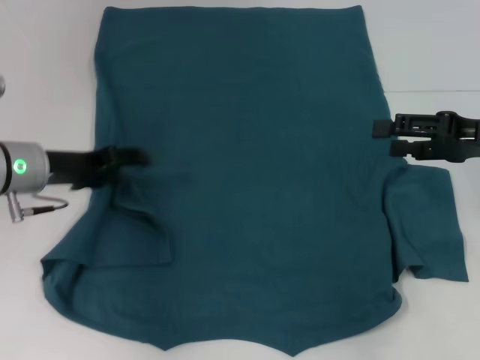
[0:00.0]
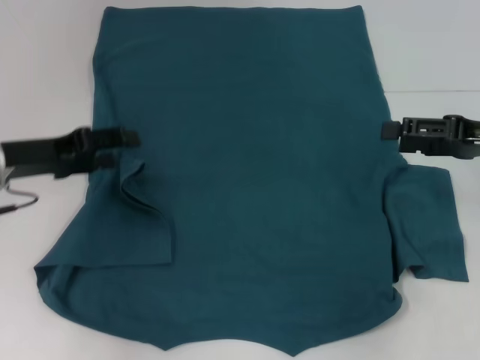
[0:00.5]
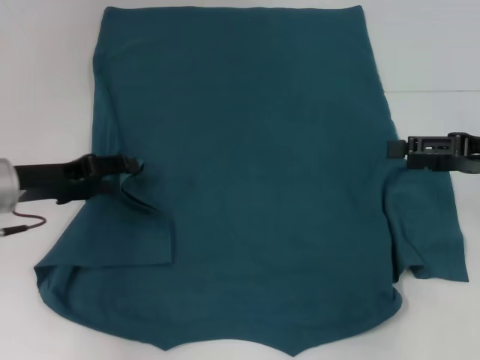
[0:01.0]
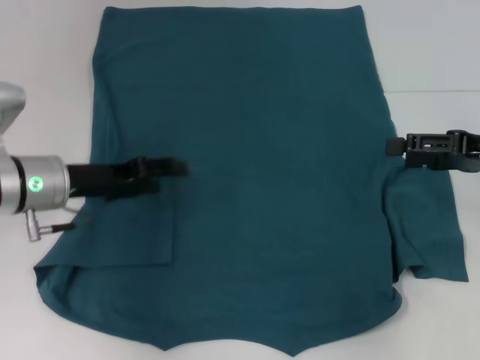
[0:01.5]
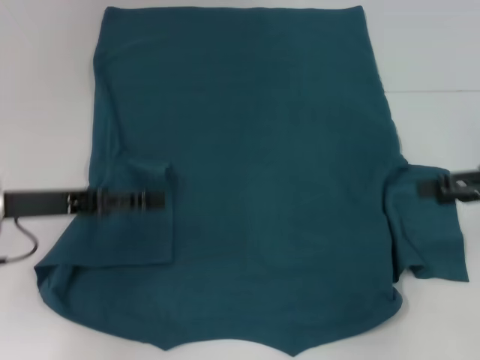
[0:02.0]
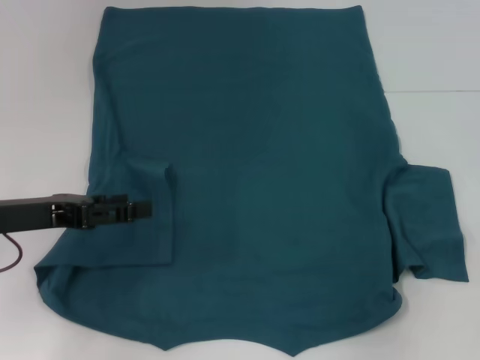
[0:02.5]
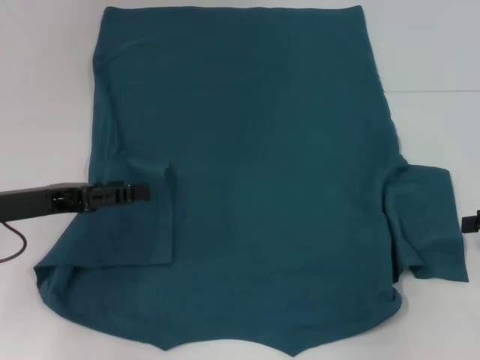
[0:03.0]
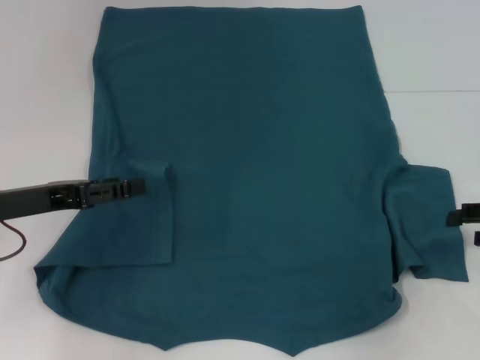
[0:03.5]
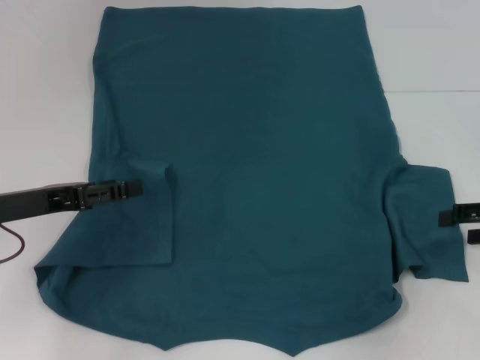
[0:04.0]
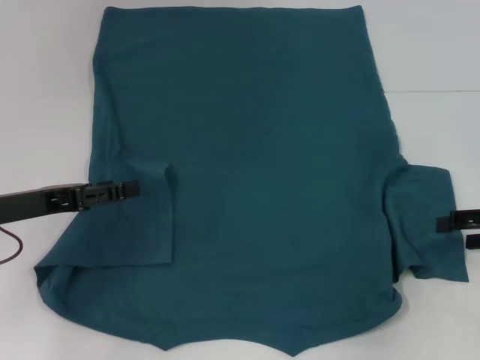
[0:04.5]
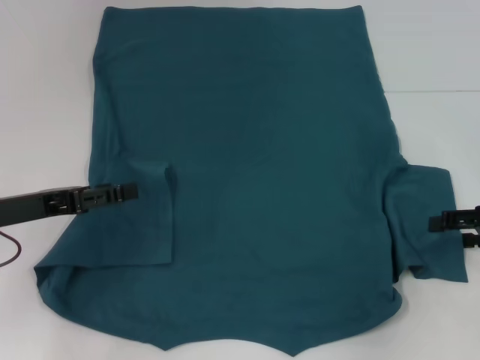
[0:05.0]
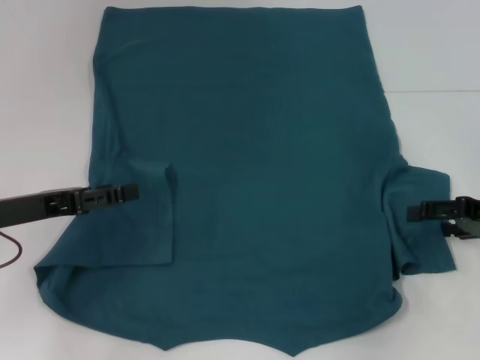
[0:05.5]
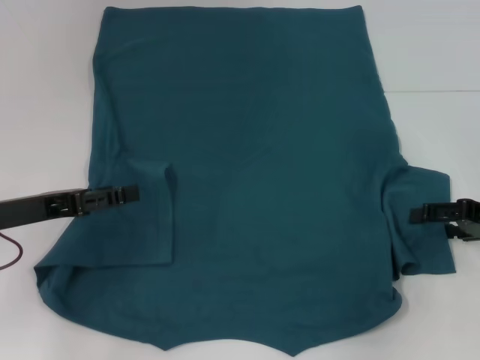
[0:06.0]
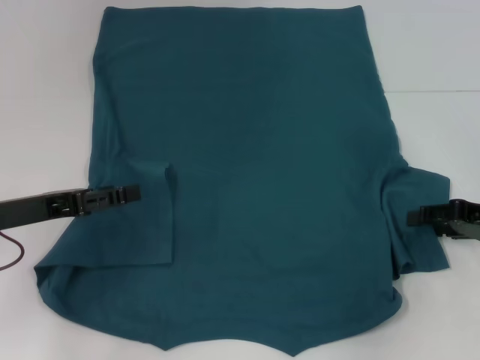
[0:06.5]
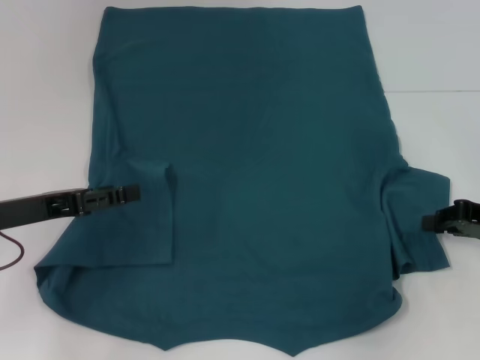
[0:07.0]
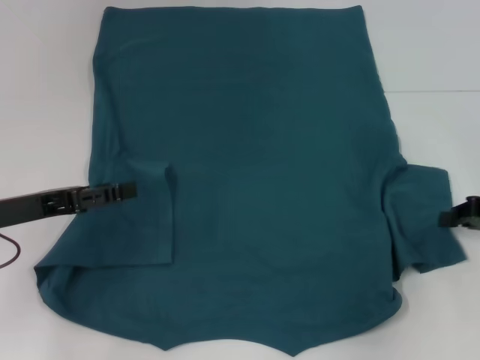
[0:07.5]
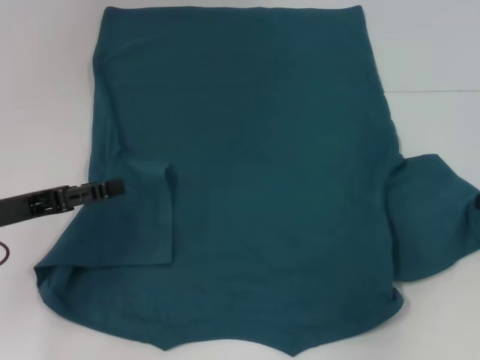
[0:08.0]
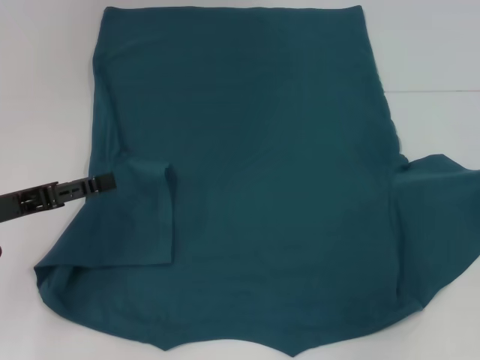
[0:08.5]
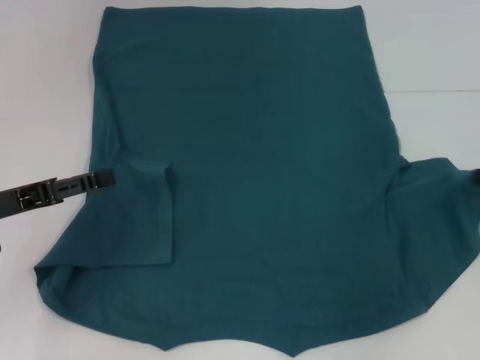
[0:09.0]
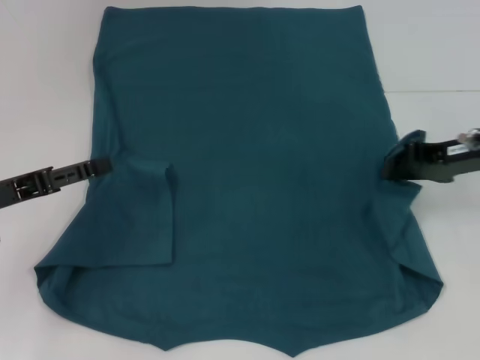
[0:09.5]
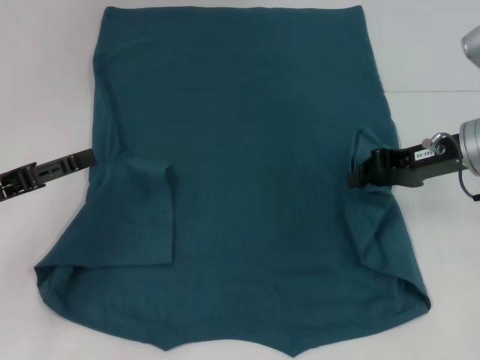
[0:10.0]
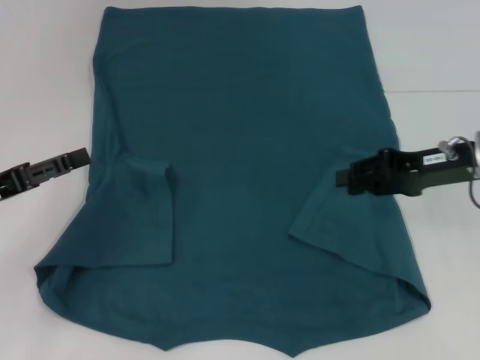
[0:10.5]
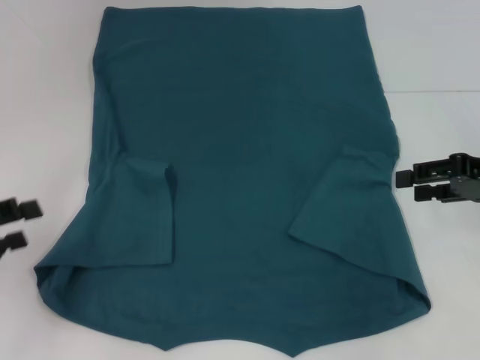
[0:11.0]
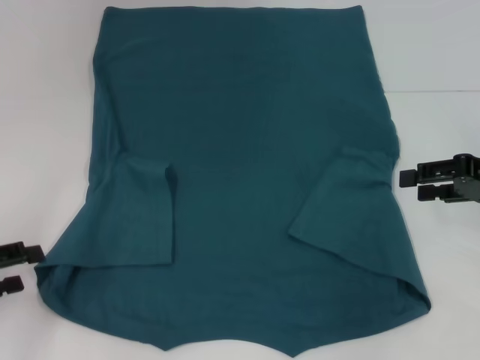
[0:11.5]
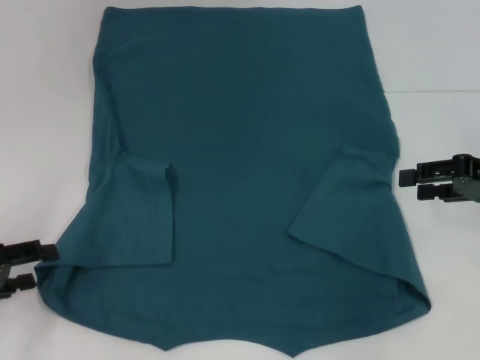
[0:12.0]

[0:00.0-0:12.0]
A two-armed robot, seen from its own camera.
Step, 0:02.0 to 0:10.0: Fold the bottom right sleeve to the right.
0:00.0 to 0:02.0: The left gripper heads backward, covering approximately 5 cm.
0:02.0 to 0:04.0: The right gripper shifts roughly 5 cm downward.
0:04.0 to 0:06.0: The grippers move only a little.
0:06.0 to 0:08.0: The right gripper closes its fingers.
0:08.0 to 0:10.0: The right gripper moves to the left, about 15 cm.
0:10.0 to 0:12.0: The right gripper is displaced to the right by some 10 cm, and opens its fingers. The left gripper changes place by approximately 5 cm.

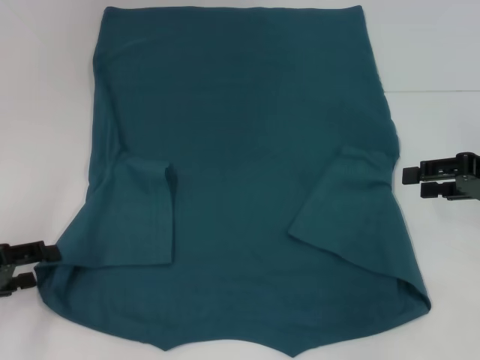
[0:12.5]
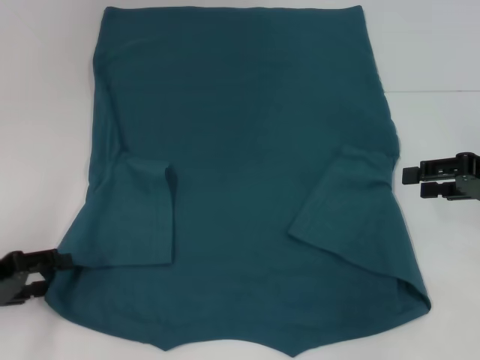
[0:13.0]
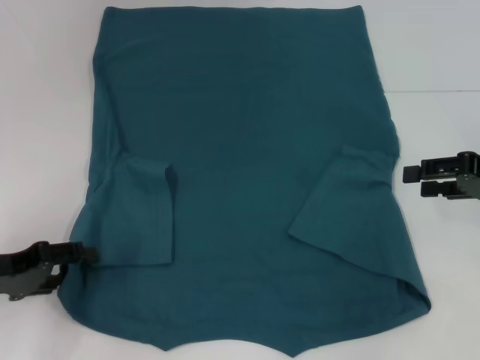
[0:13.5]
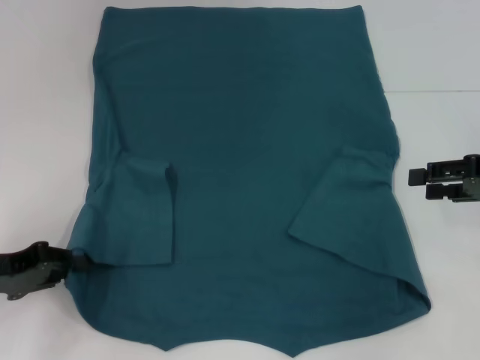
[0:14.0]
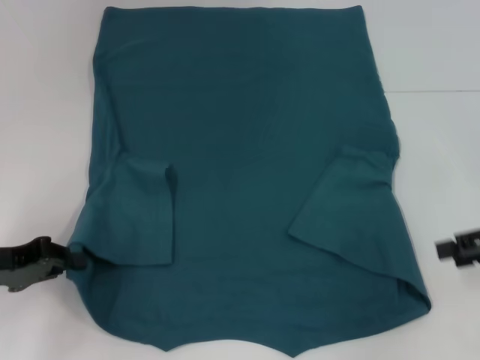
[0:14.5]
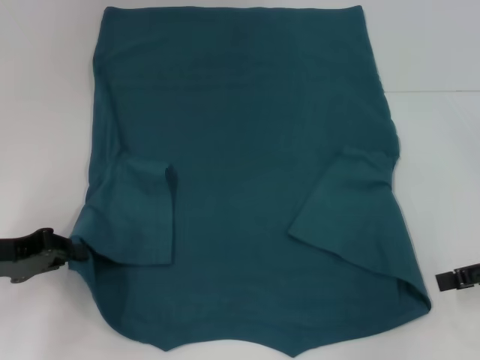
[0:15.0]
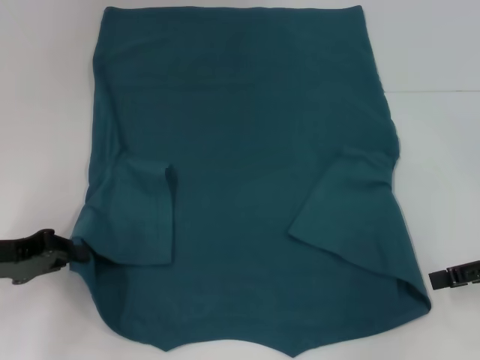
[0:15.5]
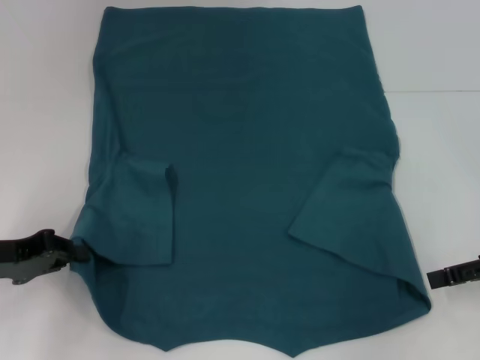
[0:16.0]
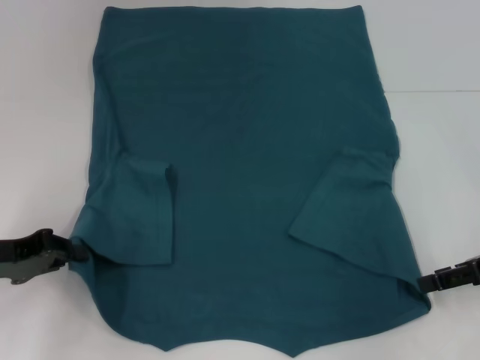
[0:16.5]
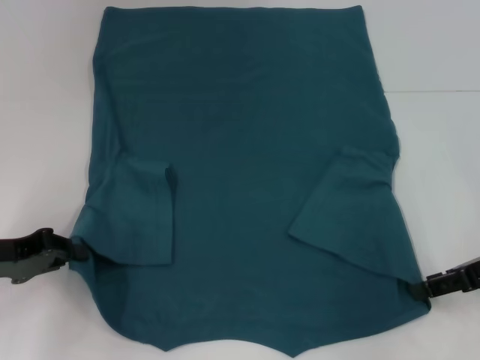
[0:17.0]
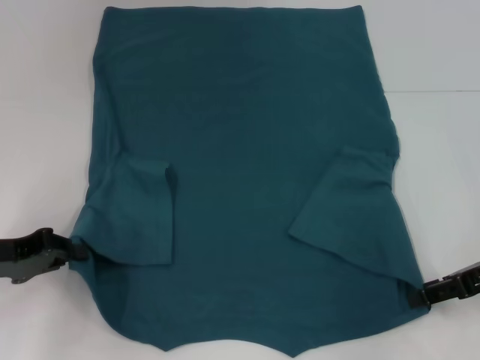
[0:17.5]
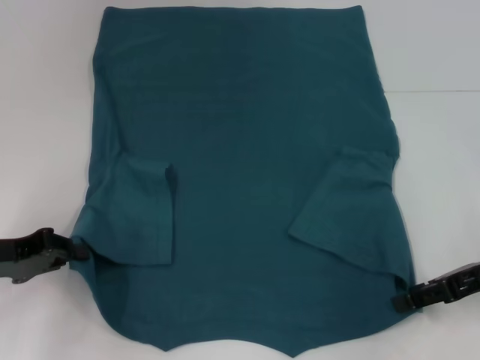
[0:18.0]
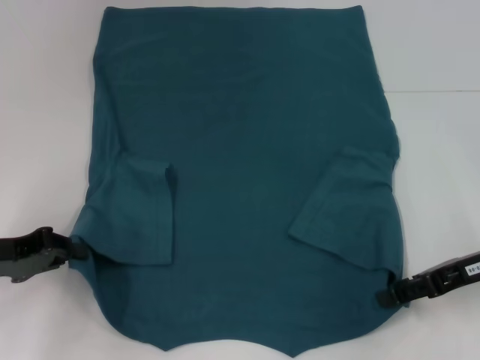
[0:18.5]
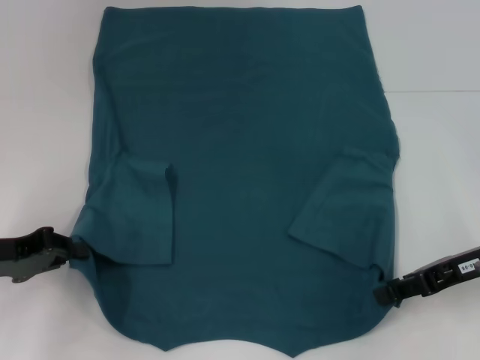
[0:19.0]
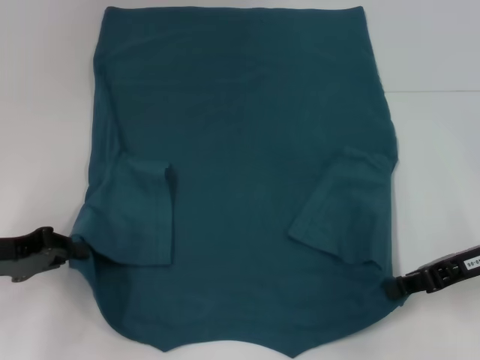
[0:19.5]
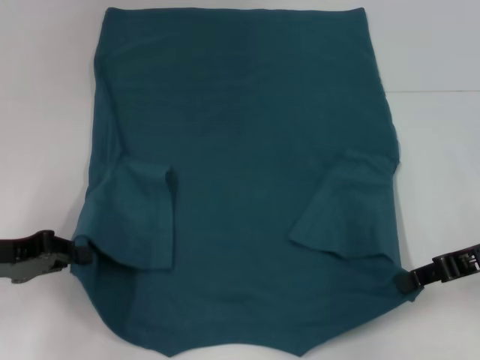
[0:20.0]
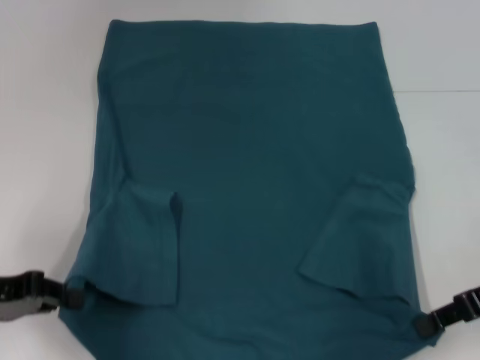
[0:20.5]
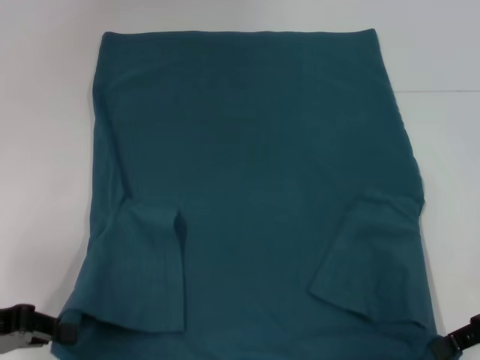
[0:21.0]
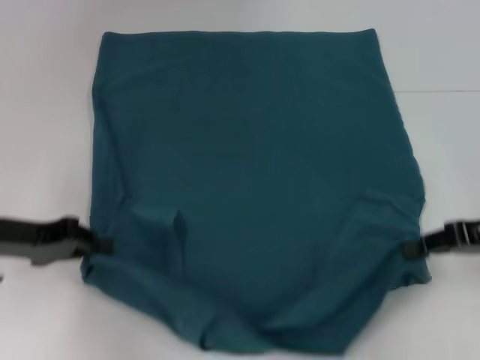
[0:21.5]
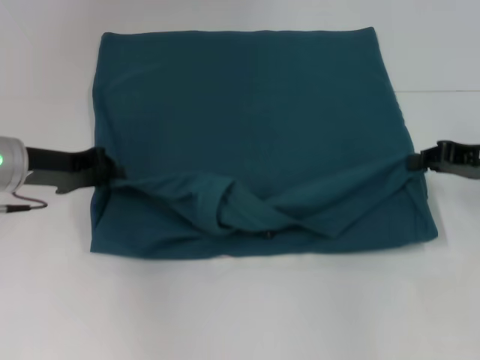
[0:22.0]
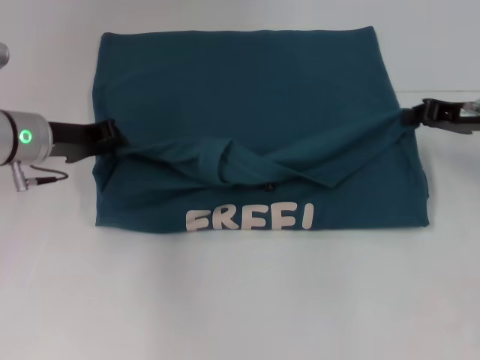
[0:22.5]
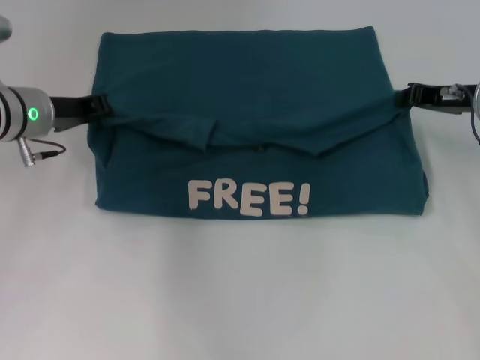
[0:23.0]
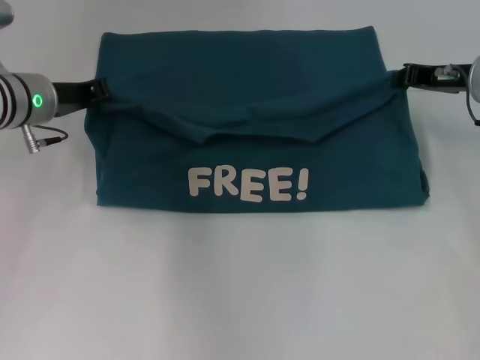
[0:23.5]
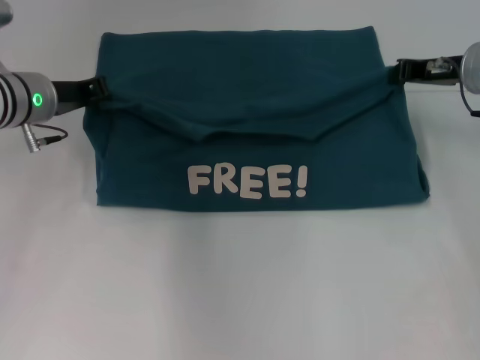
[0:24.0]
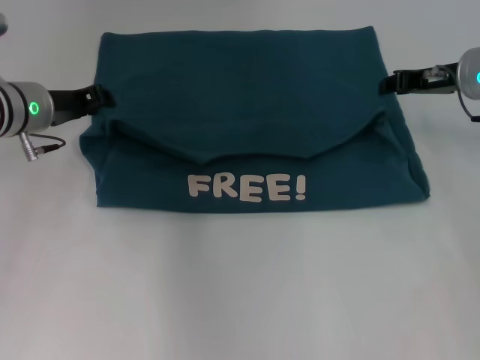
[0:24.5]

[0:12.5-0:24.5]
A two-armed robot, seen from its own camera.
Step, 0:14.5 to 0:19.0: Grab the bottom right corner with your right hand.
Step, 0:19.5 to 0:24.5: Fold the clothes to the left.
Step, 0:19.5 to 0:24.5: Fold the clothes to the right.
0:12.5 to 0:14.5: The left gripper closes.
0:14.5 to 0:16.5: The grippers make only small movements.
0:16.5 to 0:18.5: The grippers make only small movements.
0:18.5 to 0:20.5: The right gripper closes.
0:20.5 to 0:22.5: The left gripper goes approximately 15 cm forward and to the right. Meanwhile the right gripper travels forward by some 10 cm.
0:22.5 to 0:24.5: The right gripper moves roughly 5 cm.

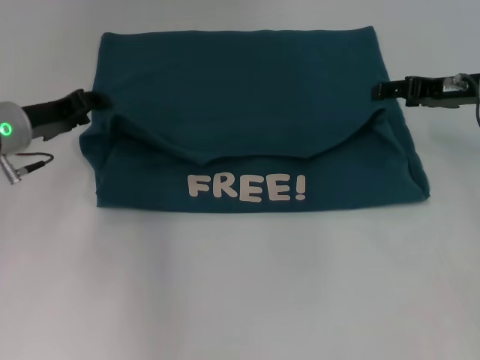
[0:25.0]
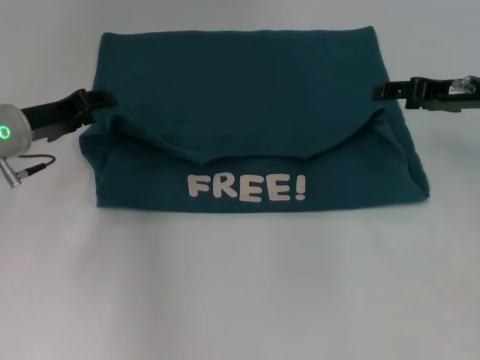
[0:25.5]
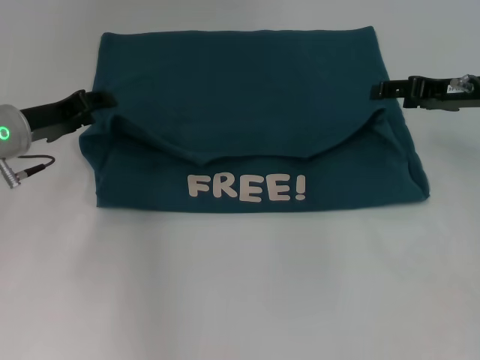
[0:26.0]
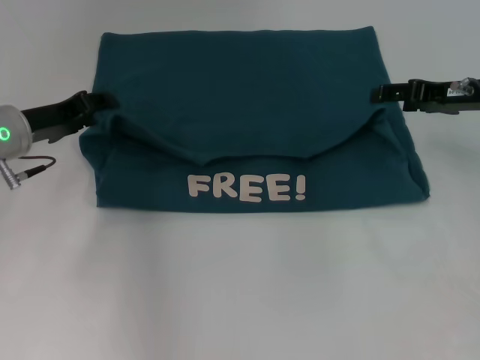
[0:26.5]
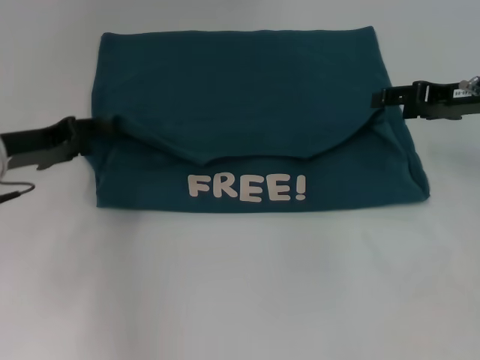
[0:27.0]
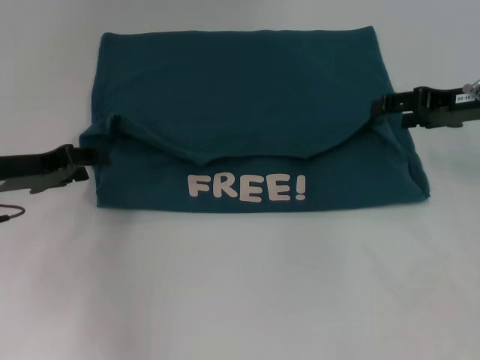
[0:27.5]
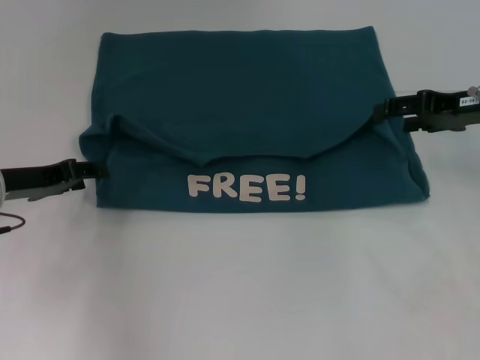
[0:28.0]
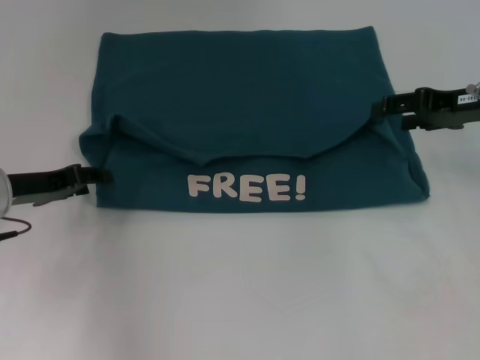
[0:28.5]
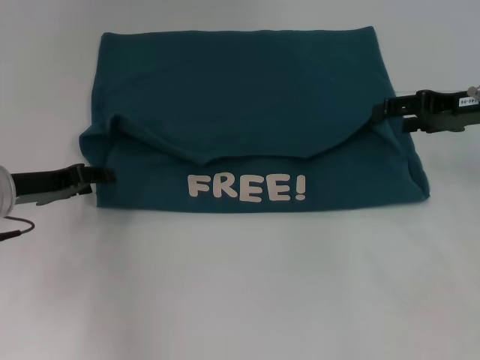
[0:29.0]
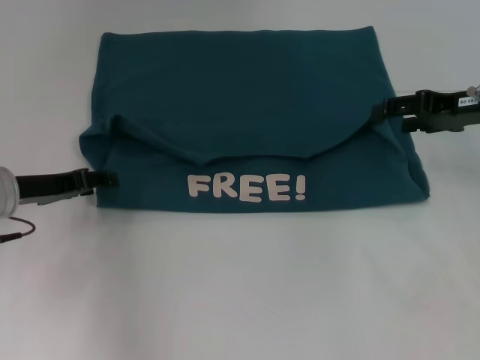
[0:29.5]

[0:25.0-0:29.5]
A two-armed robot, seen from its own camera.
0:25.0 to 0:29.5: The grippers move only a little.
